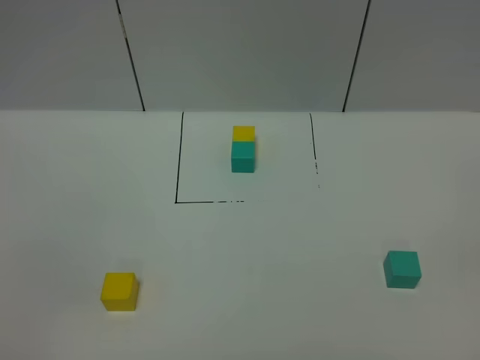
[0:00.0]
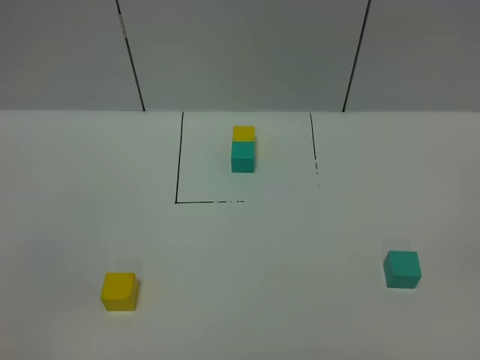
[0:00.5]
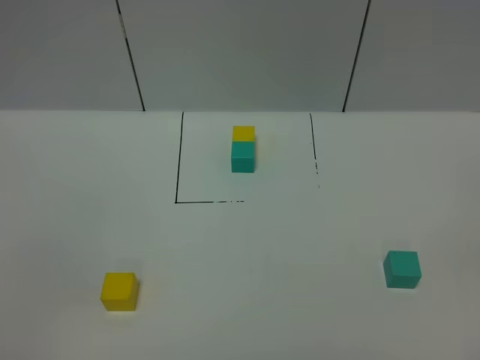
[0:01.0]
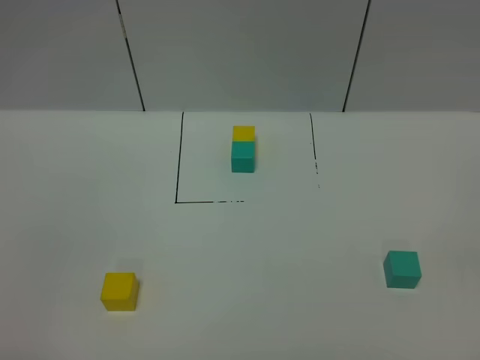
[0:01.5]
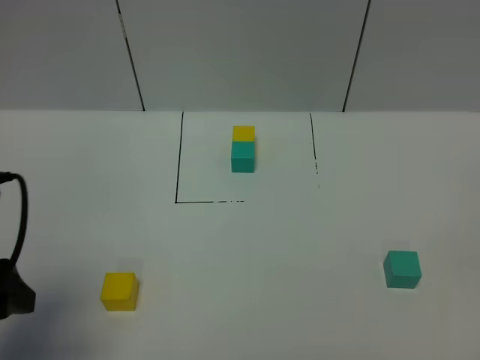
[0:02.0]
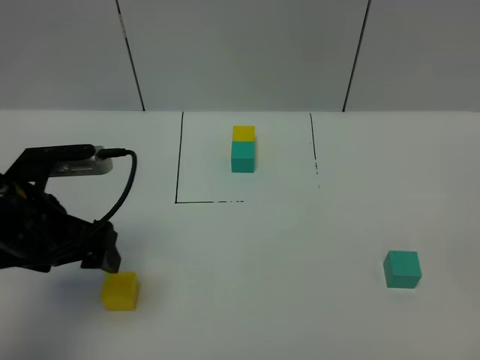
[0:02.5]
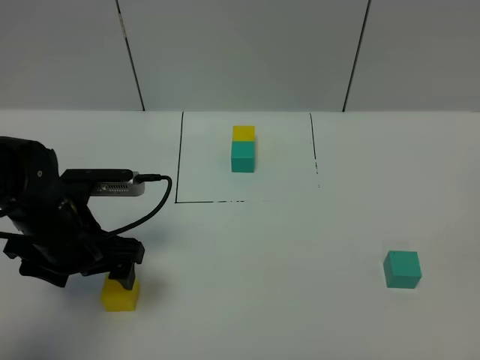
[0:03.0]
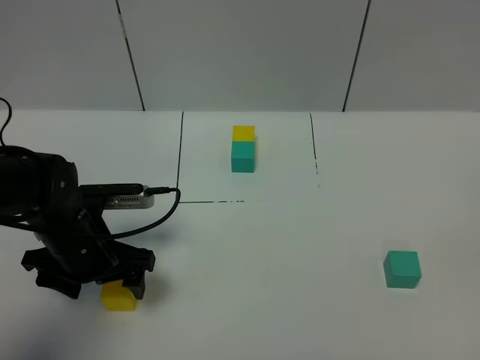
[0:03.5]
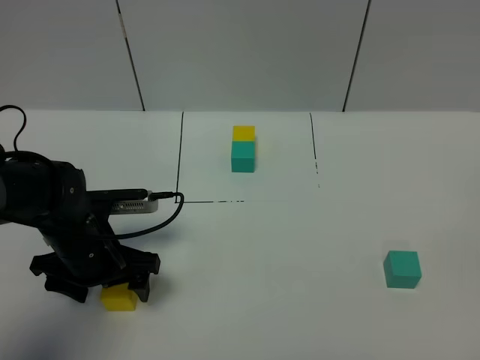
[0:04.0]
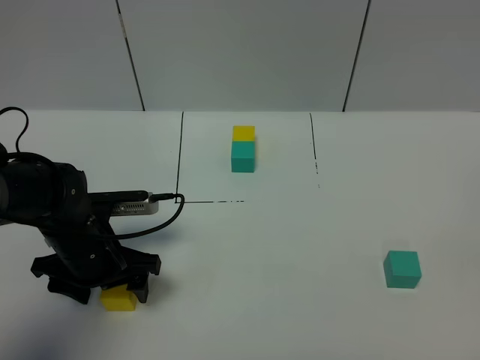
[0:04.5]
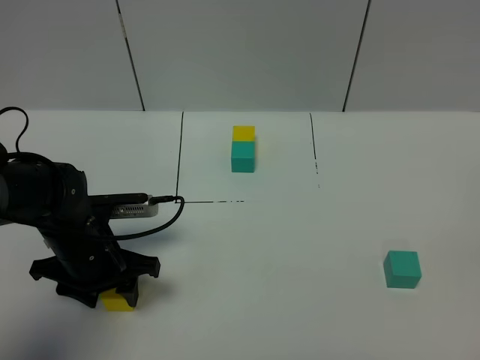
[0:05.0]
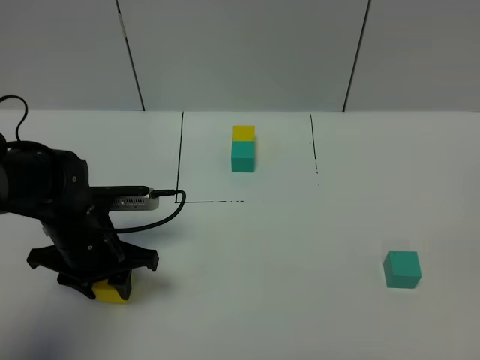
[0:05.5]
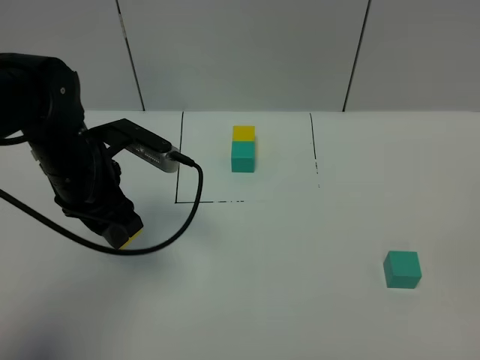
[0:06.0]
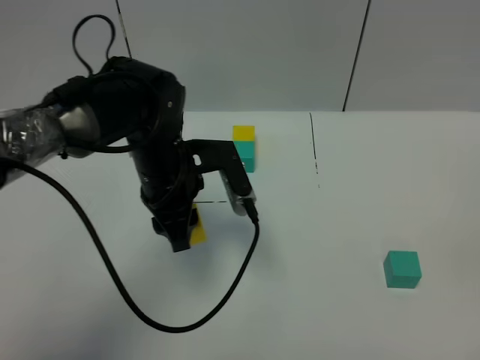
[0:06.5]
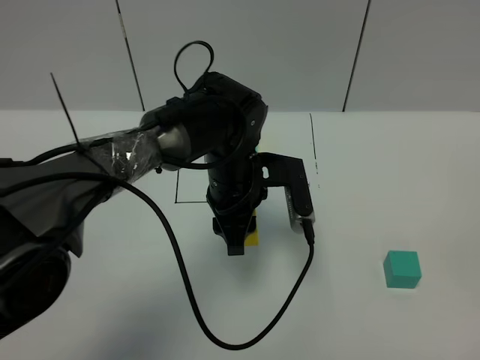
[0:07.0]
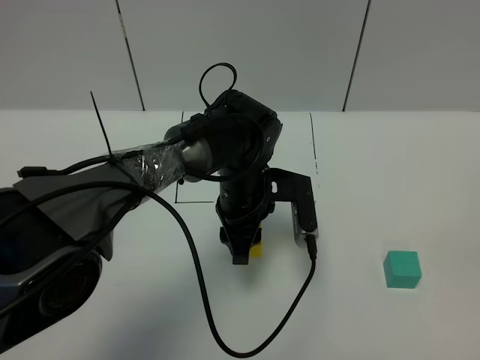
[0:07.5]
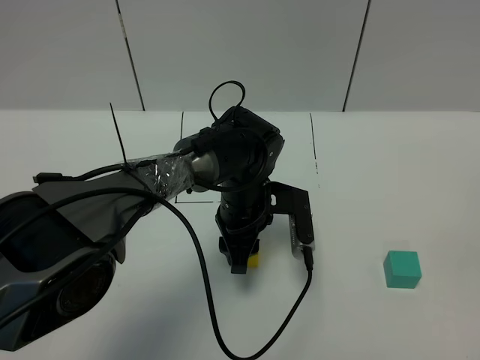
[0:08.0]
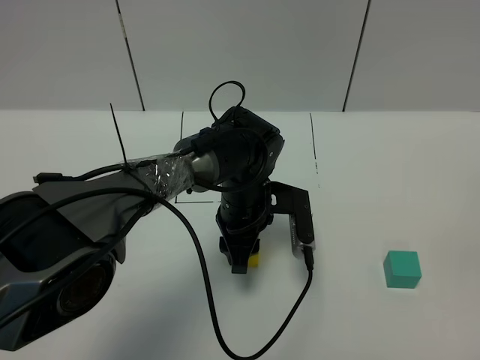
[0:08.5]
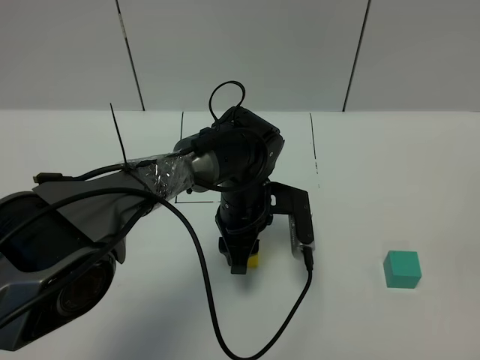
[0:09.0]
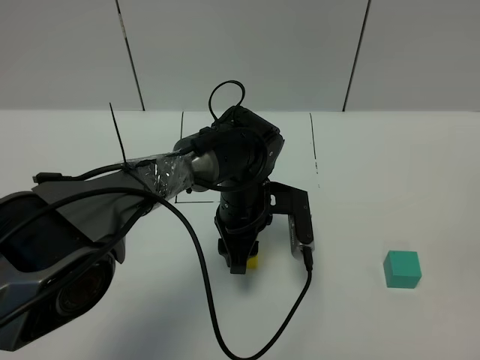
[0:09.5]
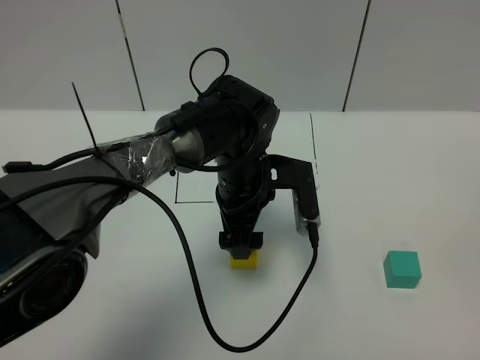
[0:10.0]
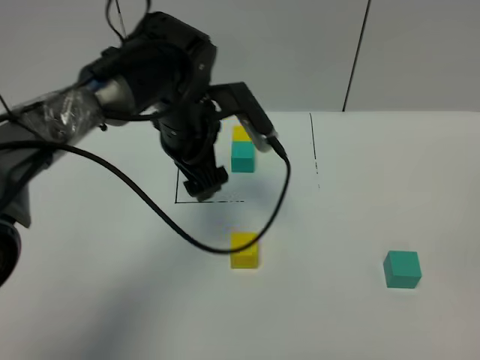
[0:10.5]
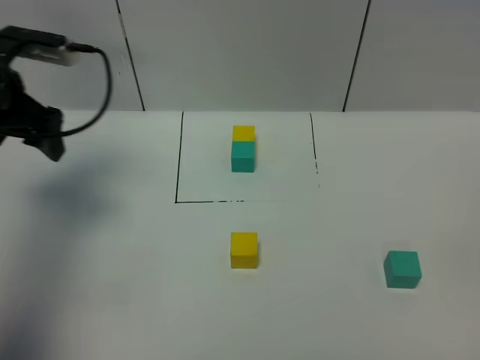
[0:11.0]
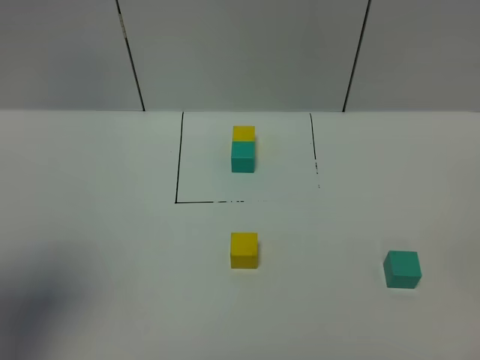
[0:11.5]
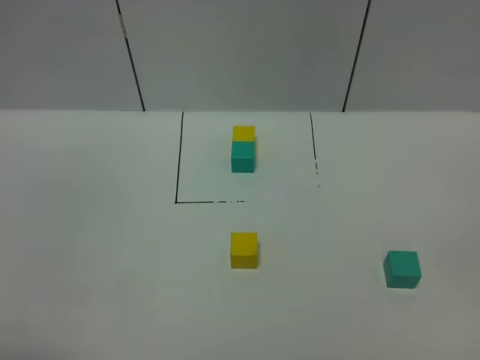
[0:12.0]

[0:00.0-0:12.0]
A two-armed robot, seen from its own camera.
Task of the whole recording: According to the building block template in front, assemble the scattered blocks together.
Step, 0:02.0 to 0:10.0: Put the yellow cube in the center of the table.
0:00.0 to 0:02.0: The left gripper moves forward, approximately 20 cm.
0:02.0 to 0:04.0: The left gripper moves downward, forward and to the right, some 20 cm.
0:04.0 to 0:06.0: The left gripper moves upward, roughly 10 cm, and closes.
0:06.0 to 0:08.0: The left gripper is displaced to the right and downward by about 20 cm.
0:08.0 to 0:10.0: The left gripper goes about 5 cm upward, and opens up.
0:10.0 to 0:12.0: The left gripper heads backward, to the left and upward, covering some 50 cm.

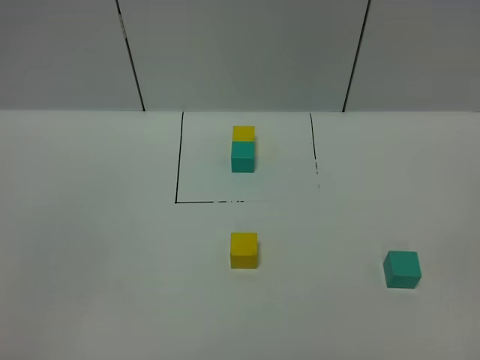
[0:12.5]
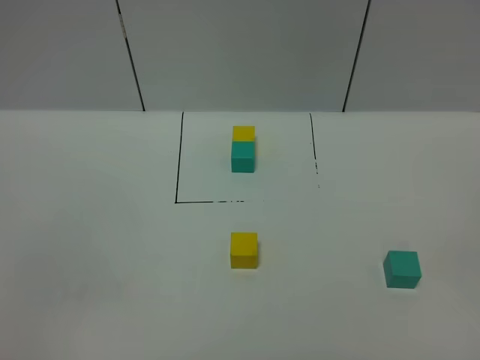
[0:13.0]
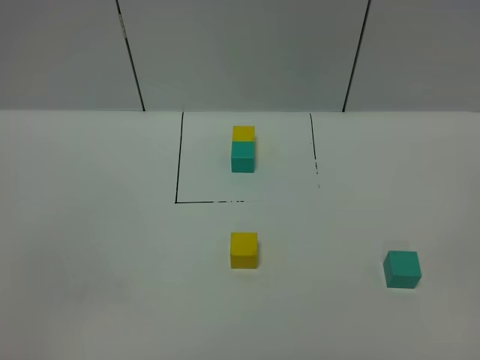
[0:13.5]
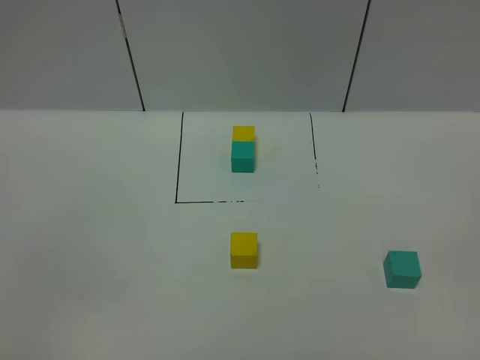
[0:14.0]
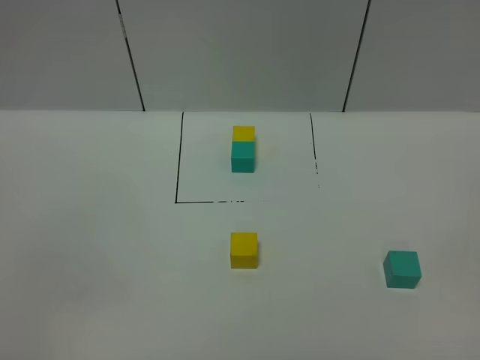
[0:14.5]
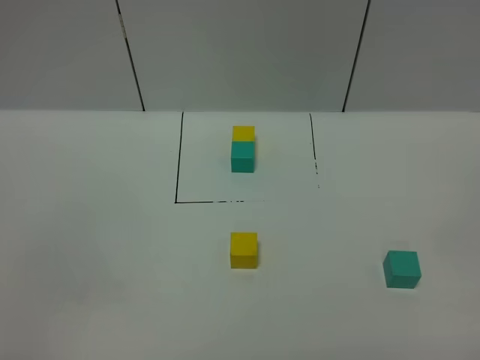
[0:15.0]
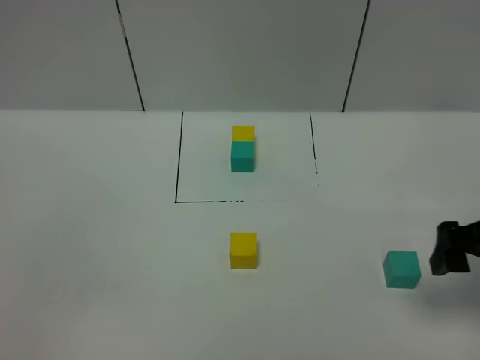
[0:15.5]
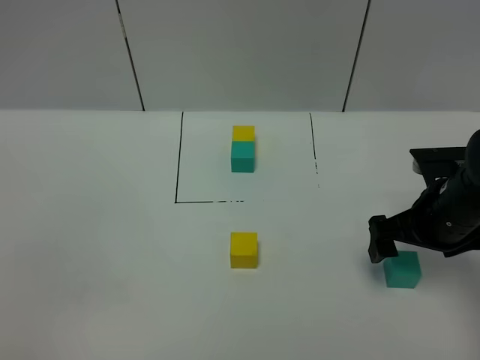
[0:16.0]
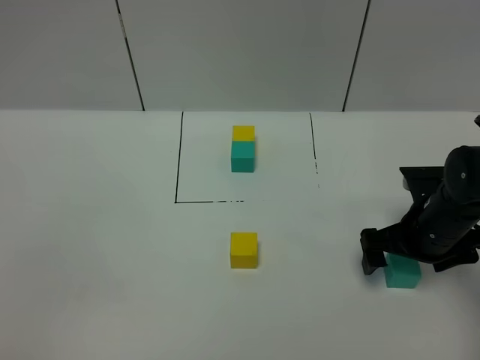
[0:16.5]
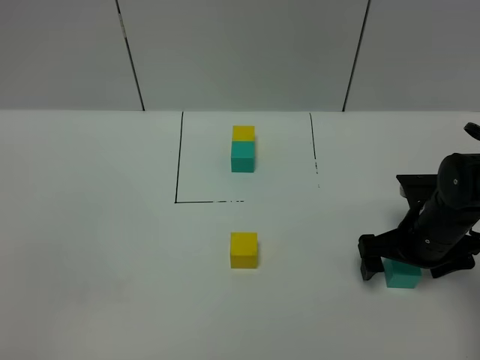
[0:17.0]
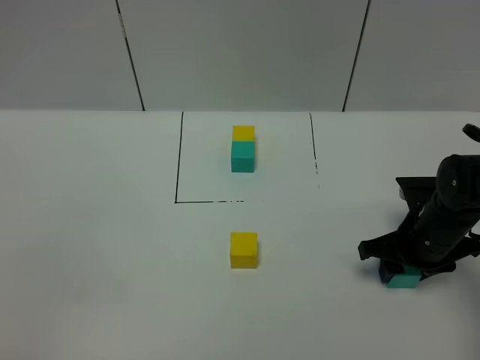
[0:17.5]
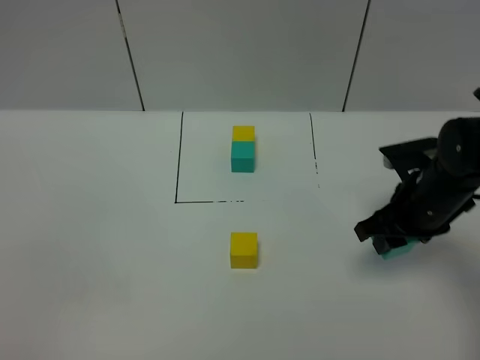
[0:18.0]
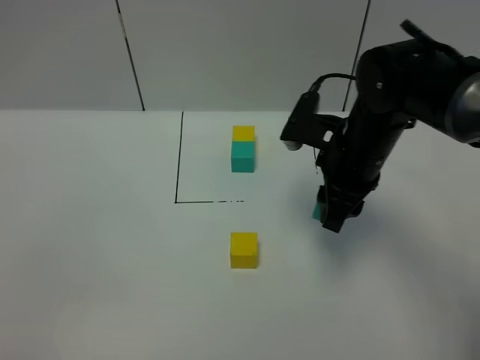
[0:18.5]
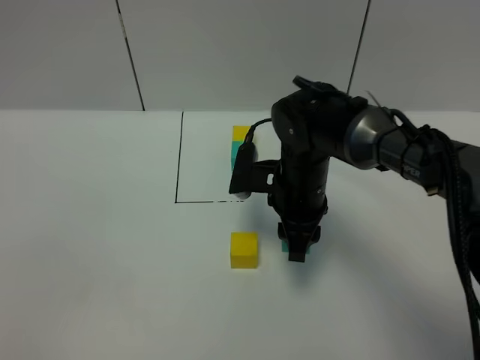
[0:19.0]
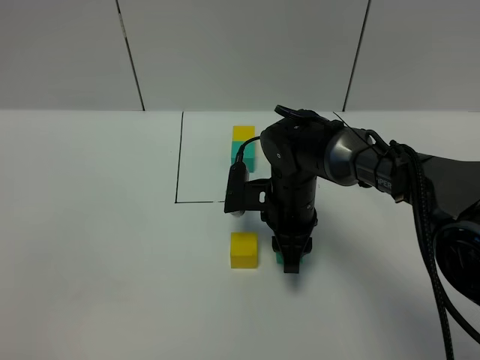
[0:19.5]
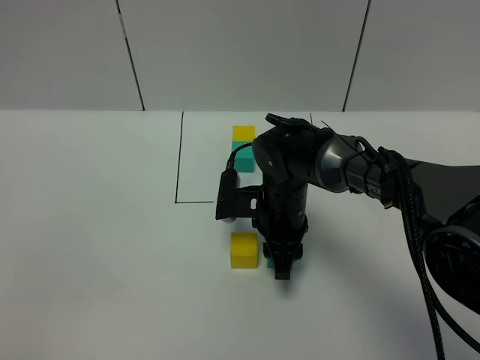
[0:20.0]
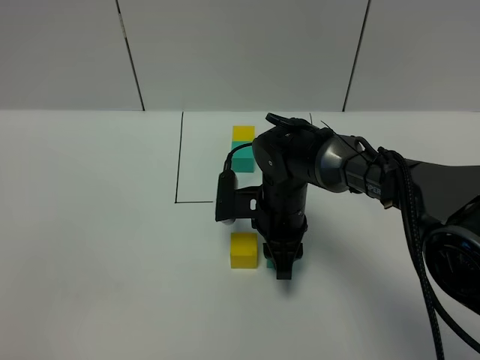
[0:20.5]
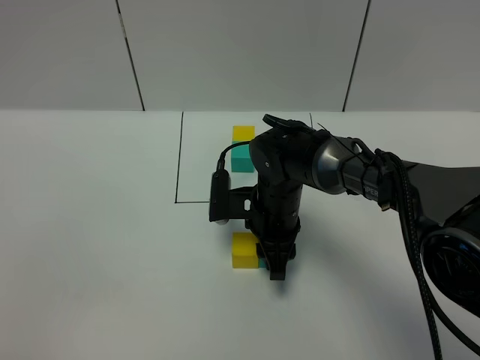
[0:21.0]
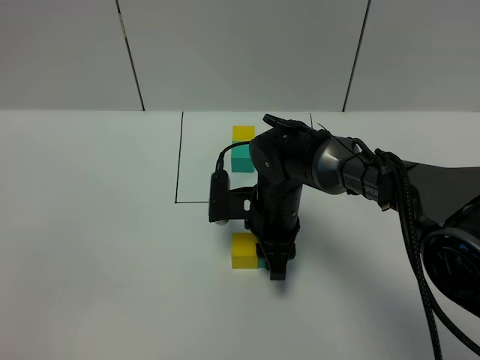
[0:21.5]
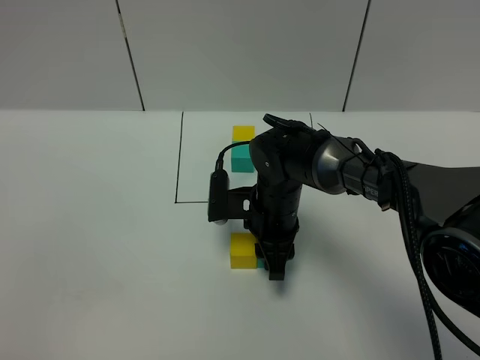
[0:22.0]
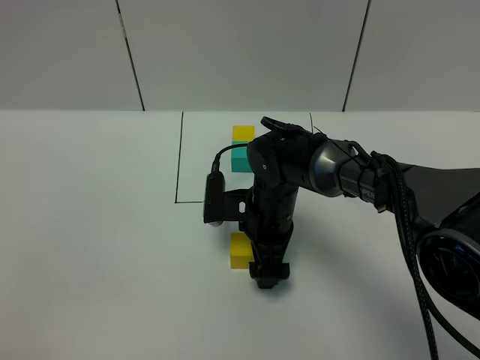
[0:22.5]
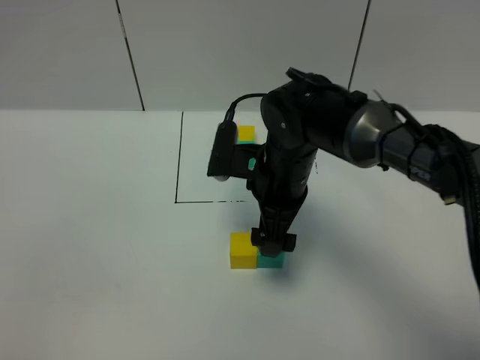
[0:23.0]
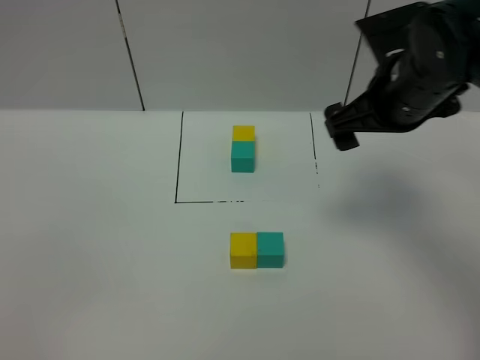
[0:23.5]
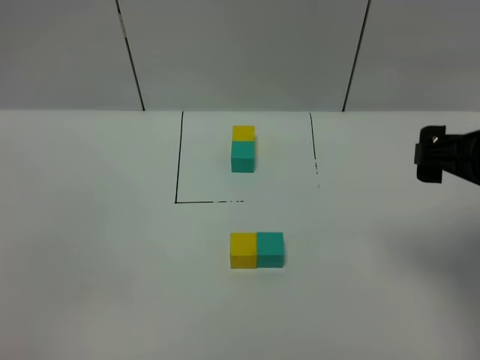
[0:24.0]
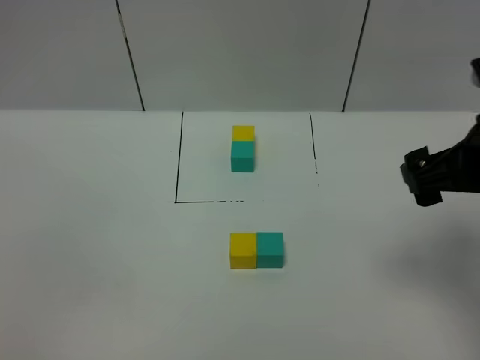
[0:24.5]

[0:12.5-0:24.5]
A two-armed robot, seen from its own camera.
Task of the whole recording: According to the building block template in front, assemble the scattered blocks together.
Step, 0:12.5 to 0:23.0: Put the green cube on the right of the yellow cube.
0:14.5 to 0:16.5: The right gripper heads forward and downward, covering approximately 35 cm.
0:16.5 to 0:18.5: The right gripper goes about 15 cm to the left and upward, and closes its fingers.
0:18.5 to 0:20.5: The right gripper moves downward and to the left, roughly 15 cm.
0:20.5 to 0:22.5: The right gripper opens its fingers.
0:22.5 to 0:24.5: The right gripper heads upward, to the right and backward, covering some 30 cm.

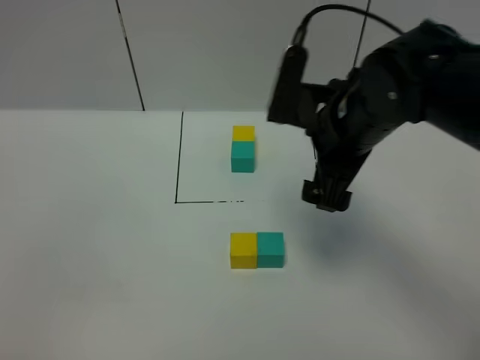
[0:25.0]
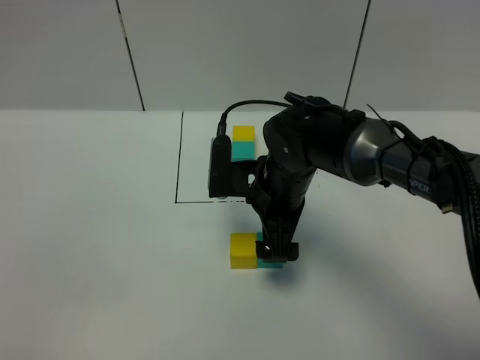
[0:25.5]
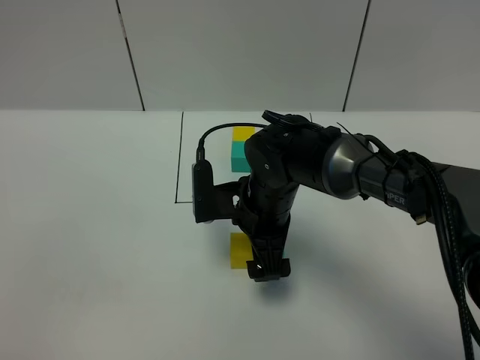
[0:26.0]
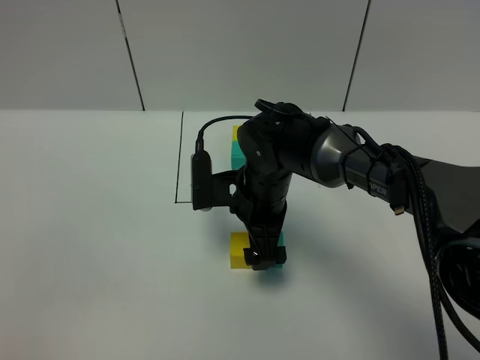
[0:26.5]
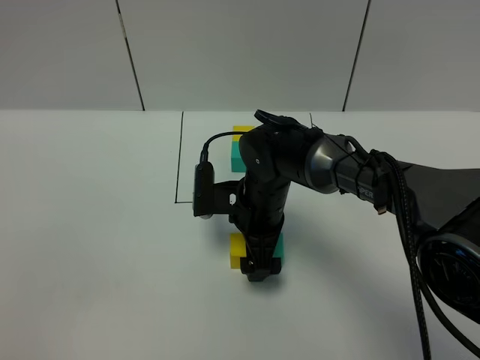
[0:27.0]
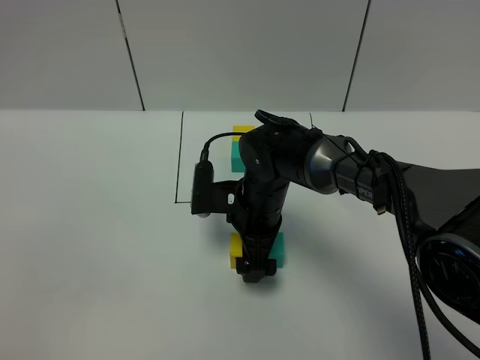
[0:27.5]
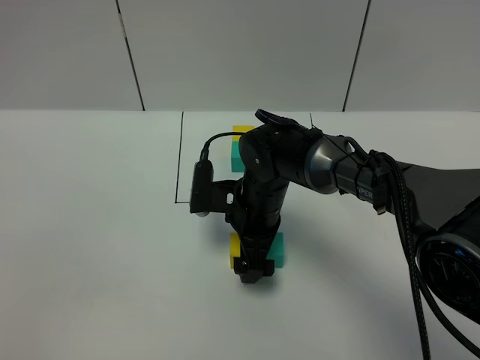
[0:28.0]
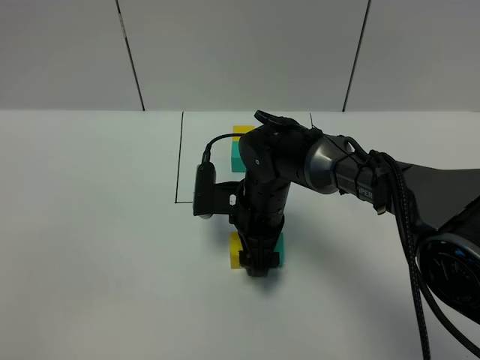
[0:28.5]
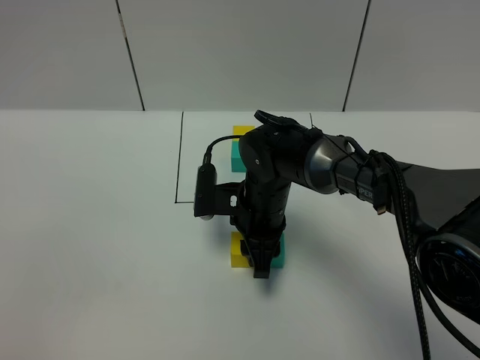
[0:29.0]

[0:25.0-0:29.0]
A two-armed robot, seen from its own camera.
Task of the whole recording: According to the building block template in front, assemble the scattered blocks together.
0:25.0 to 0:27.0: The right gripper heads downward and to the left, covering approximately 15 cm.
0:27.0 to 0:29.0: The right gripper closes.
